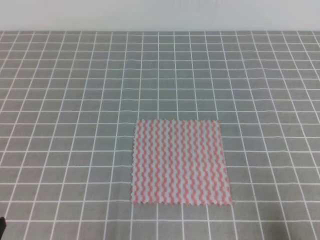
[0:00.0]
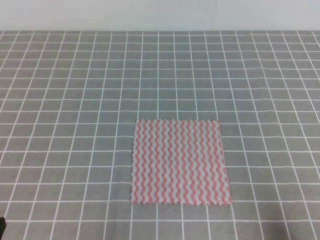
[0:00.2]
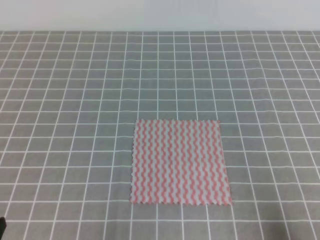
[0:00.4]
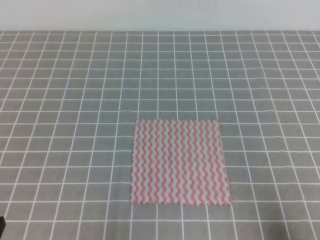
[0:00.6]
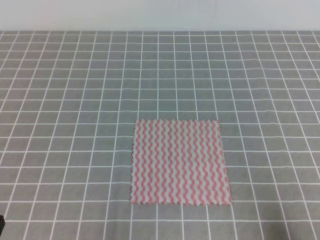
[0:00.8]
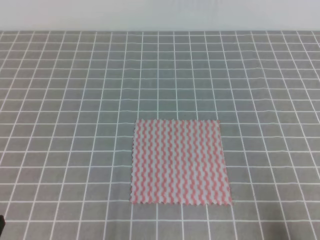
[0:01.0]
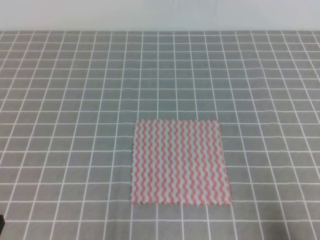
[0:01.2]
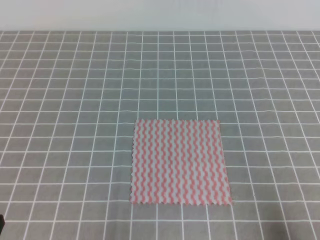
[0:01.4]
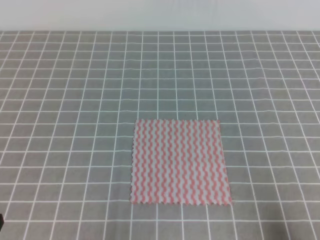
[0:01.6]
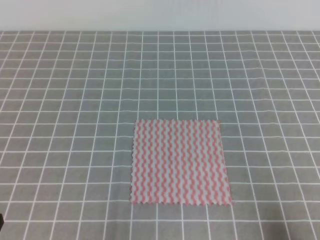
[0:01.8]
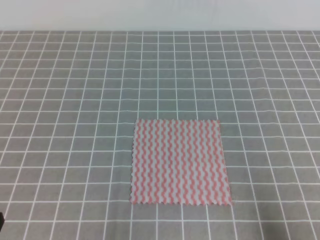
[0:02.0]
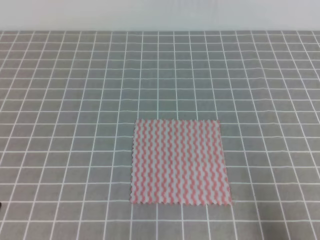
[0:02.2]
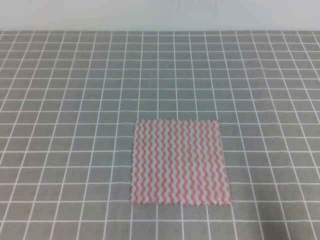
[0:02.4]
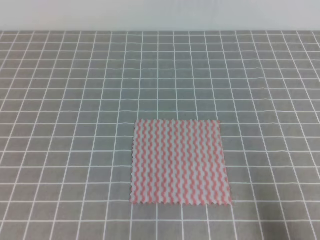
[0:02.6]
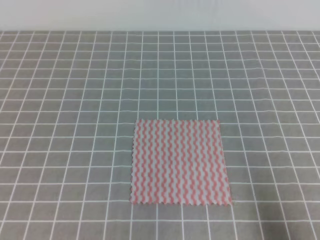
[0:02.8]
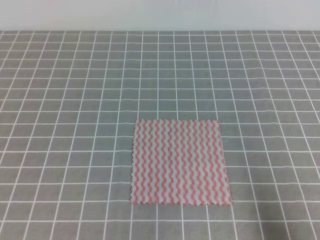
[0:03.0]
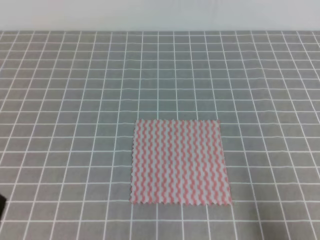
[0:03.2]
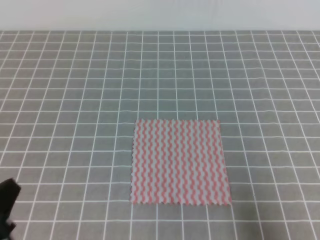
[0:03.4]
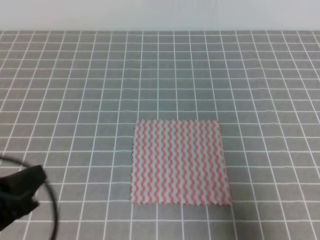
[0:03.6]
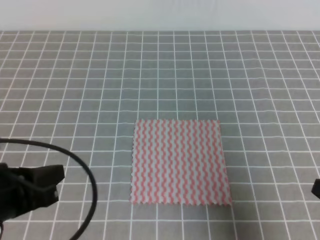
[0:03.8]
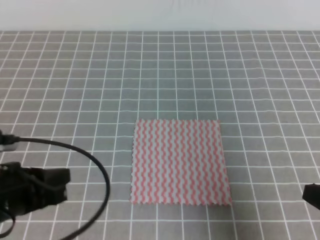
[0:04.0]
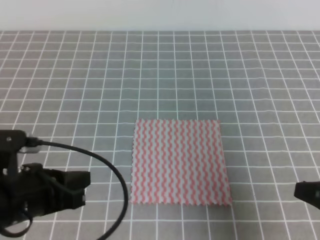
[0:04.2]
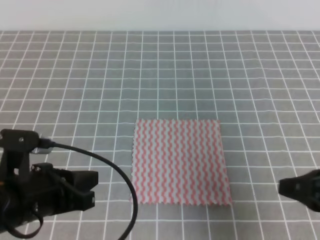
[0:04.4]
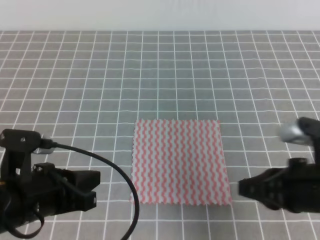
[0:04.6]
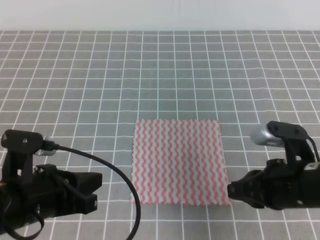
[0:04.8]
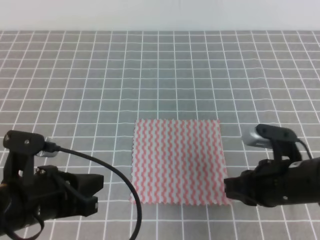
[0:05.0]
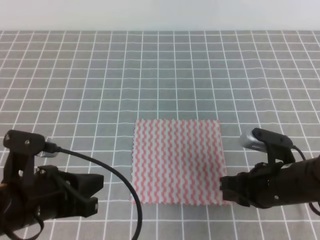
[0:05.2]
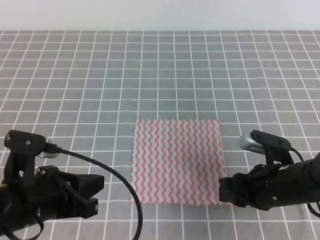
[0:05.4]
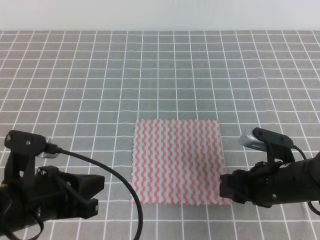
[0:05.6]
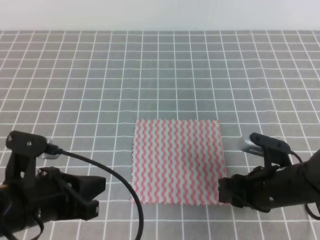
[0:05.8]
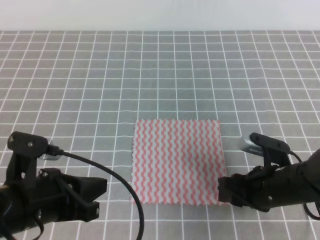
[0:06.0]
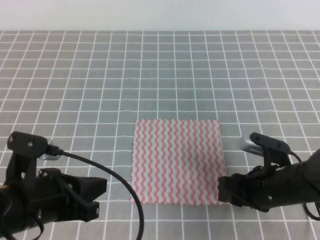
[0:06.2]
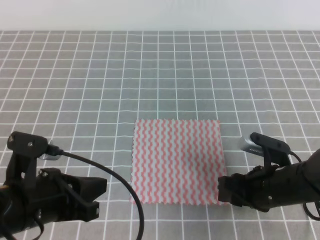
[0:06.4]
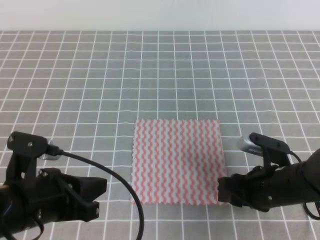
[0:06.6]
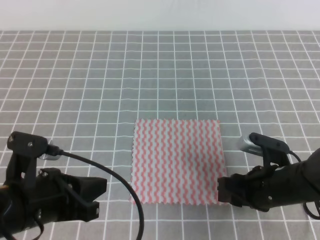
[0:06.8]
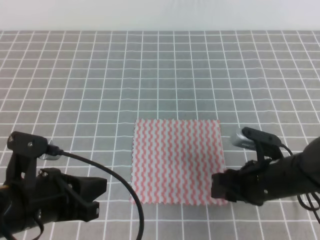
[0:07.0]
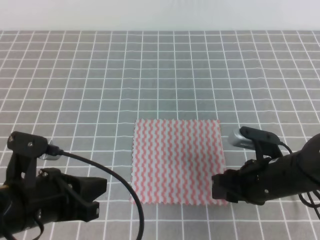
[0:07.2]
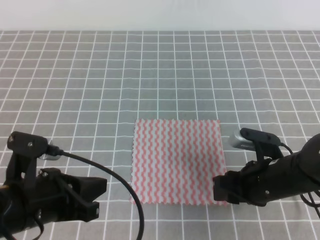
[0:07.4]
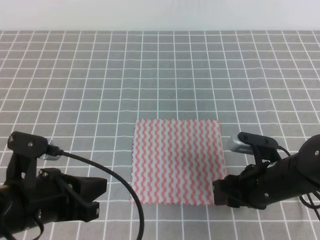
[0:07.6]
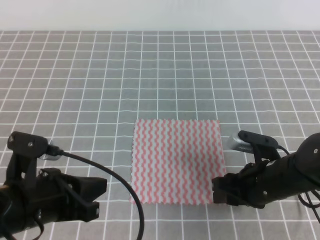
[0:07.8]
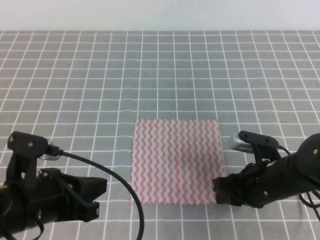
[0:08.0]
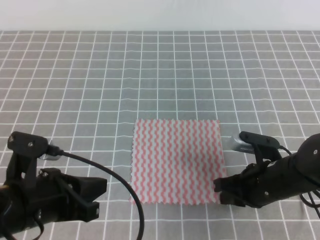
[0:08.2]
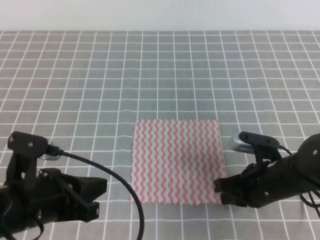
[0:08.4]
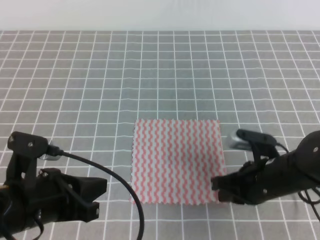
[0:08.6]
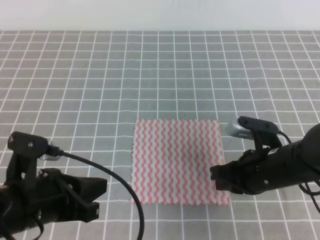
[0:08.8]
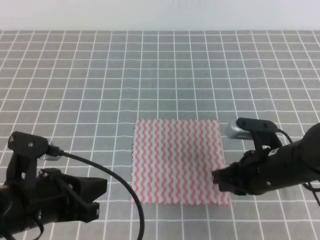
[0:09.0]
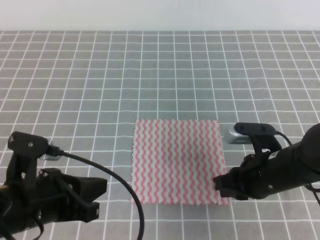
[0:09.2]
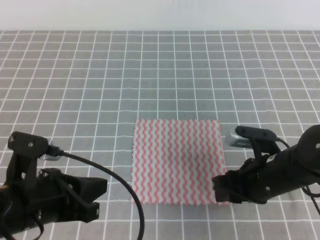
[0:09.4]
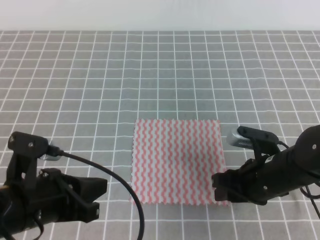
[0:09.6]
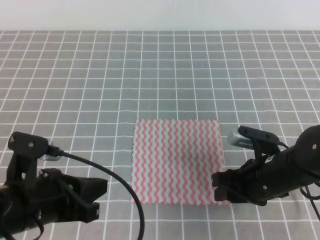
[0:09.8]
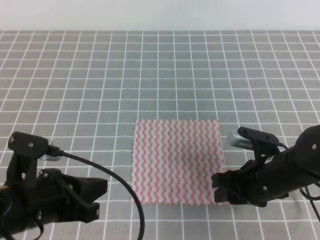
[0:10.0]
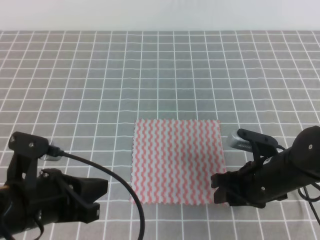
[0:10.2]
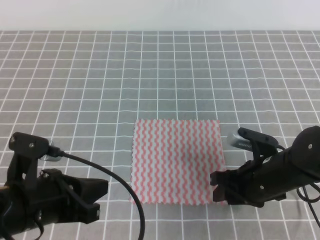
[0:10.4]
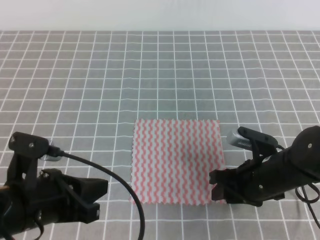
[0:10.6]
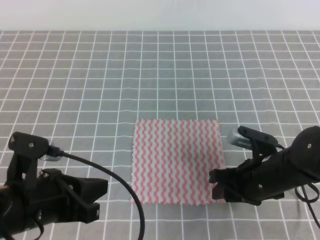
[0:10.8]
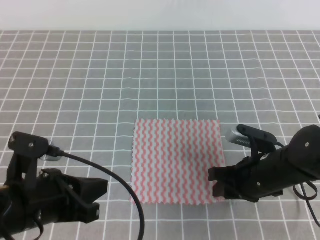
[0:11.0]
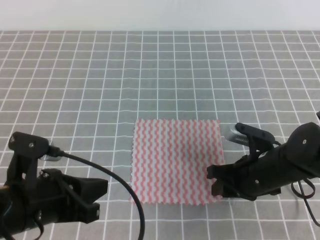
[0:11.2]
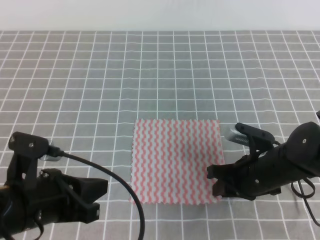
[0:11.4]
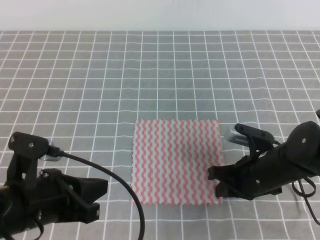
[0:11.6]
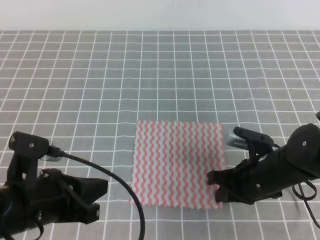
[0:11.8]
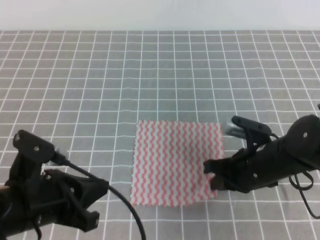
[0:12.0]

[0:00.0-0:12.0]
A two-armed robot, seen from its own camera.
0:00.0 to 0:01.6: The two grippers keep their place.
0:03.0 to 0:04.4: The right gripper goes about 10 cm forward and to the left. The left gripper is displaced forward and to the right by approximately 15 cm.
0:04.4 to 0:06.0: The right gripper moves downward, to the left and forward, about 15 cm, and opens up.
0:06.0 to 0:07.6: The grippers make only small movements.
0:07.6 to 0:09.0: The right gripper closes up.
0:09.0 to 0:10.4: The right gripper opens.
0:10.4 to 0:12.0: The right gripper closes its fingers.

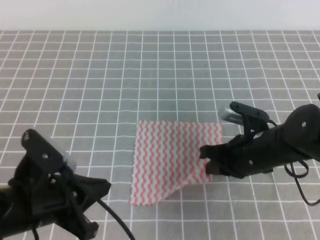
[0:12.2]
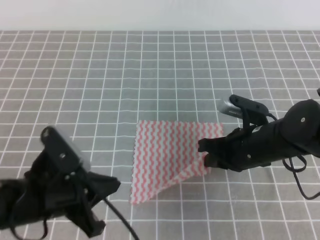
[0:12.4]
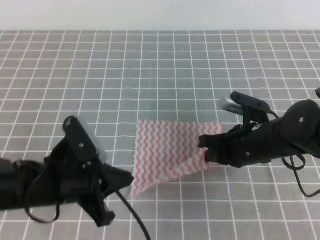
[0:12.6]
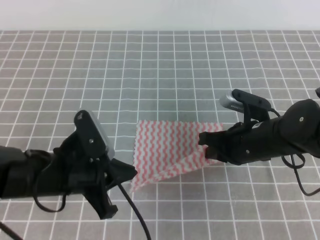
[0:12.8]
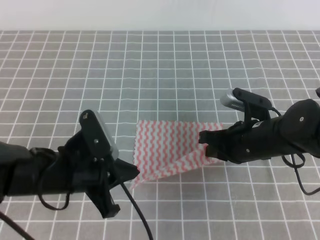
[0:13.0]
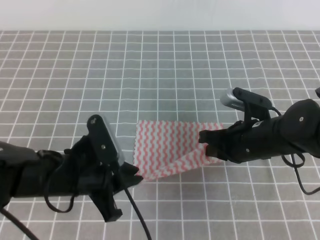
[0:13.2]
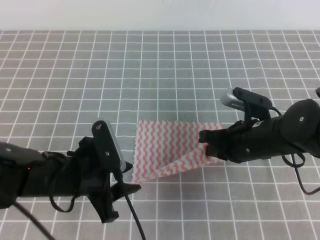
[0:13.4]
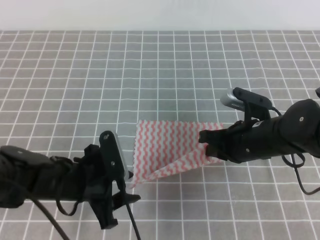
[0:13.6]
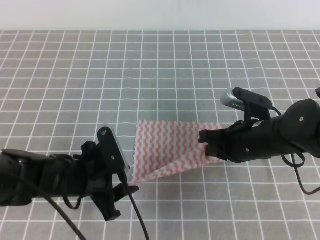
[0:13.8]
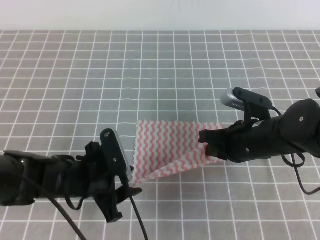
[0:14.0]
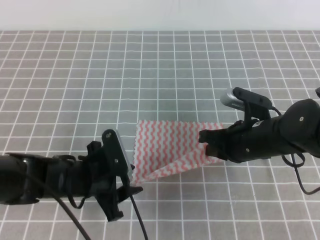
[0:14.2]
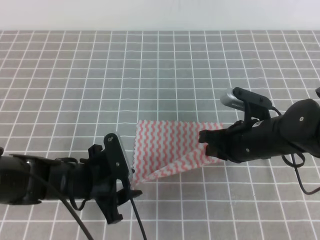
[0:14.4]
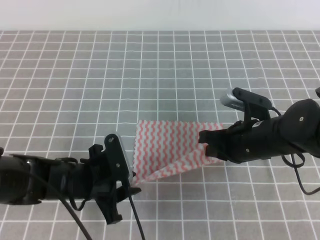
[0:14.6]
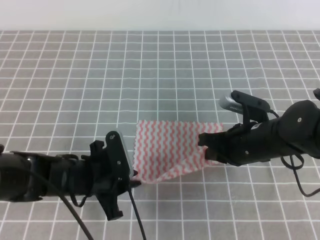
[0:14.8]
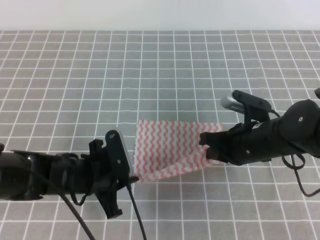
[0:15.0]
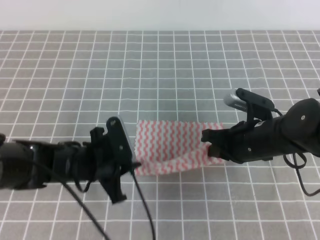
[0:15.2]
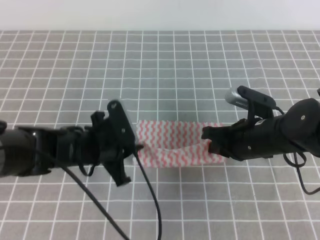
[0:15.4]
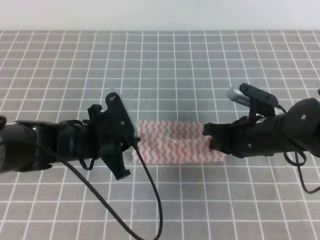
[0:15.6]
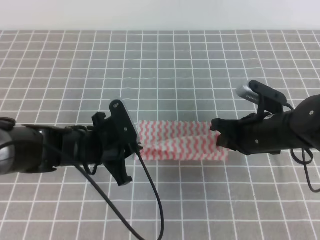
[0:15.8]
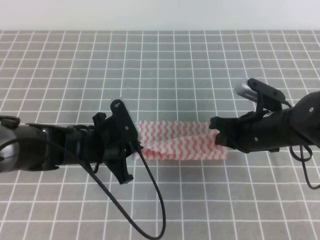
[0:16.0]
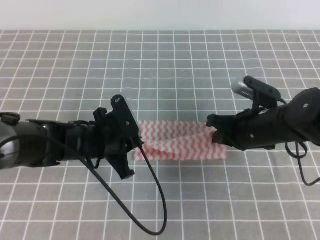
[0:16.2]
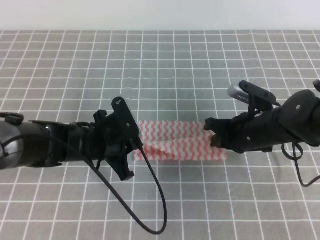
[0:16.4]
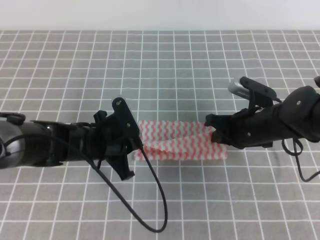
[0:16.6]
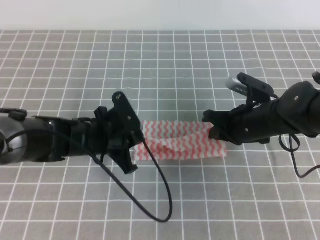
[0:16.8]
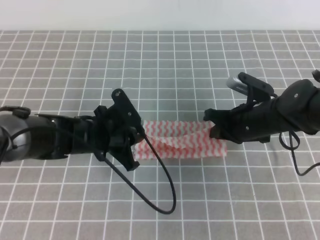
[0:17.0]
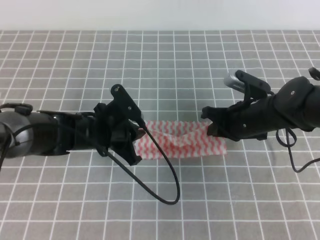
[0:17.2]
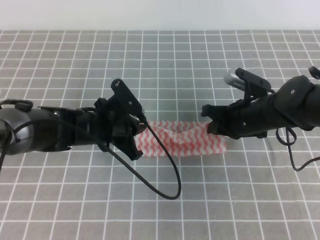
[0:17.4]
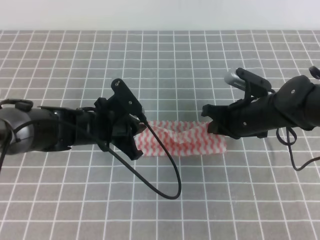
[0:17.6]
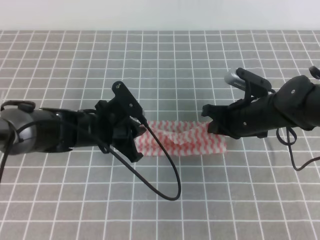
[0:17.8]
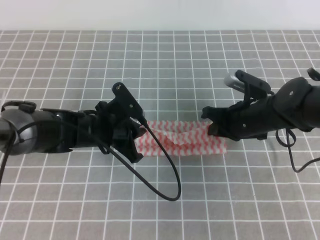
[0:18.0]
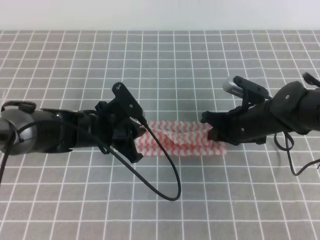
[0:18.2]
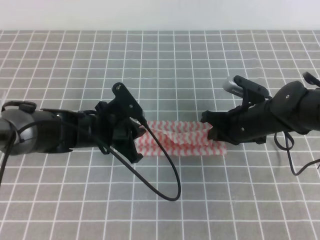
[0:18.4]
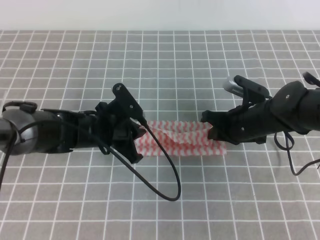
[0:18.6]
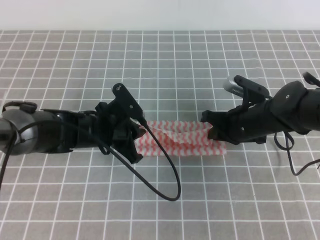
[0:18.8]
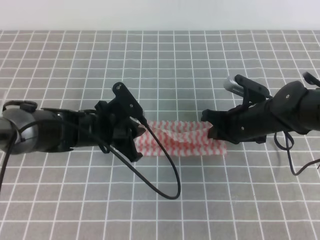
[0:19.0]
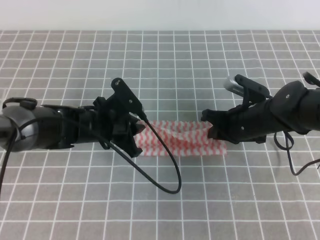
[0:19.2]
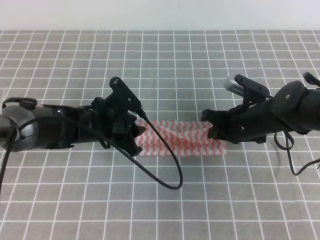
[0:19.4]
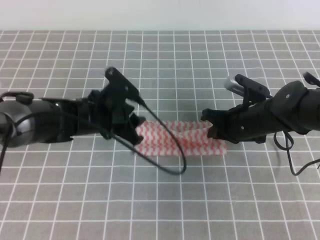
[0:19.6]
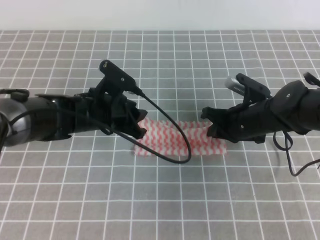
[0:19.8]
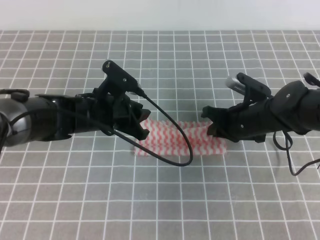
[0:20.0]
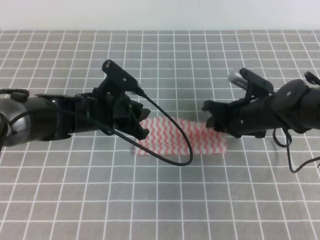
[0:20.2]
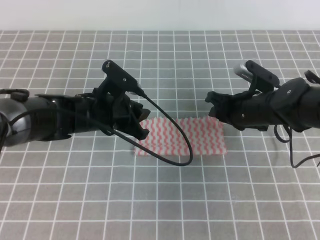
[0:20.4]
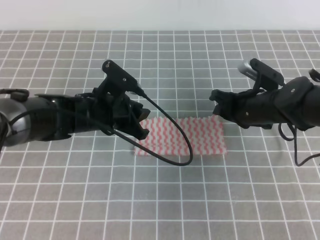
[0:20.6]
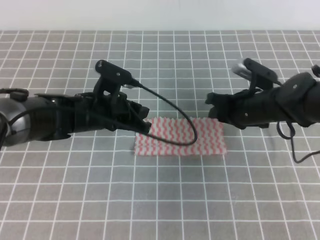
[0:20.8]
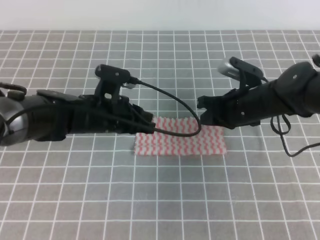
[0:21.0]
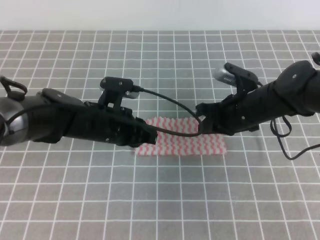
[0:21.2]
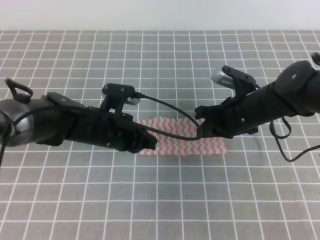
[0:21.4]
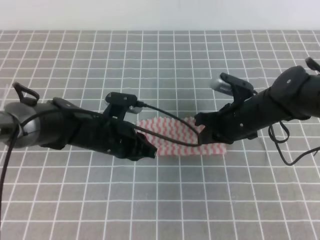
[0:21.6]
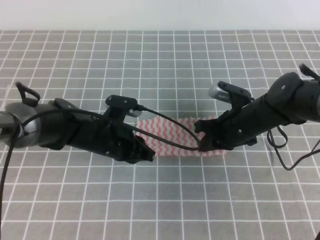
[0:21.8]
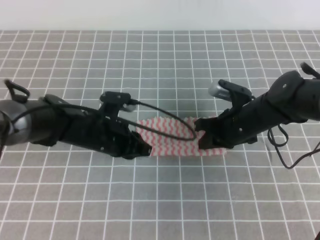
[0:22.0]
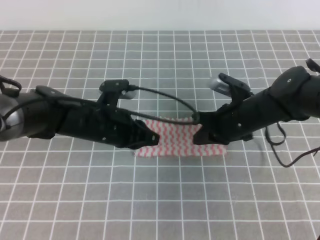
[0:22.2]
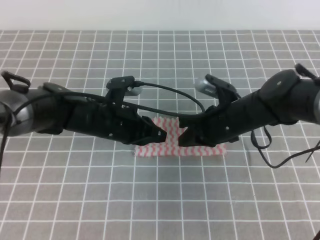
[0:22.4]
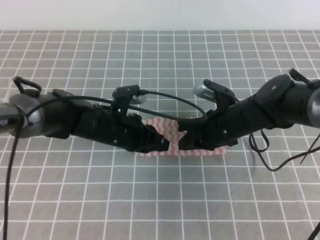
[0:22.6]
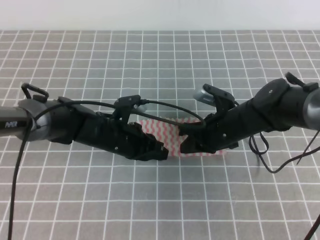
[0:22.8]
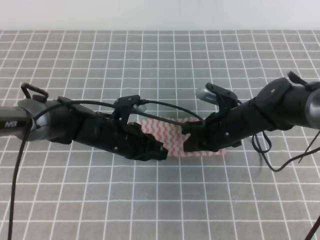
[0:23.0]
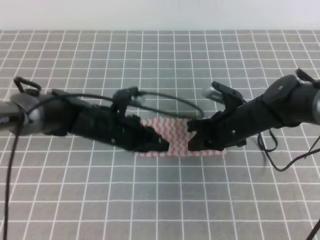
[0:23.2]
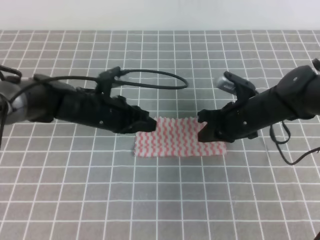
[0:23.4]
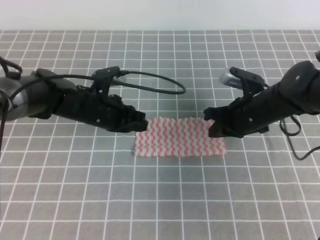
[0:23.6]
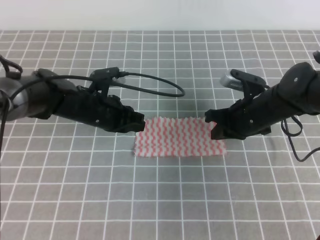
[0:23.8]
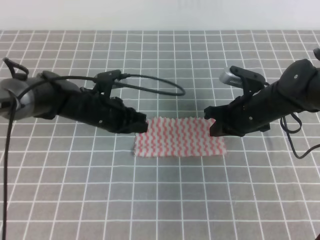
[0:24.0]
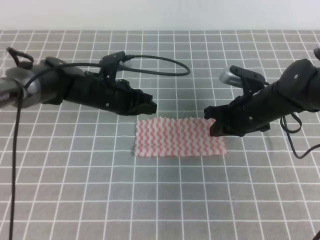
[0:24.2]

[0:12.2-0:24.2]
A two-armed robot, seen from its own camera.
0:12.2 to 0:13.8: The left gripper travels forward and downward by approximately 10 cm, and opens its fingers.
0:13.8 to 0:15.2: The left gripper closes.
0:15.2 to 0:16.6: There are only small adjustments of the grippers.
0:16.6 to 0:18.2: The grippers make only small movements.
0:18.2 to 0:19.8: The left gripper opens.
0:19.8 to 0:21.2: The left gripper closes up, while the right gripper opens, then closes again.
0:21.2 to 0:22.6: The grippers make only small movements.
0:22.6 to 0:24.2: The left gripper shifts about 5 cm forward. The right gripper moves approximately 5 cm.
